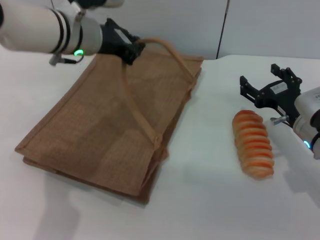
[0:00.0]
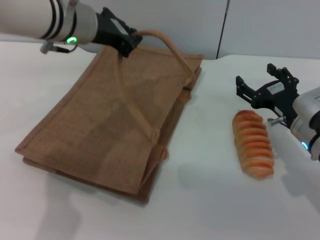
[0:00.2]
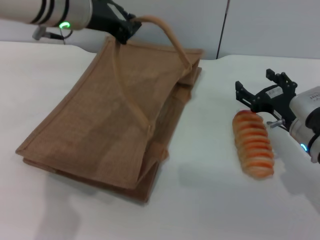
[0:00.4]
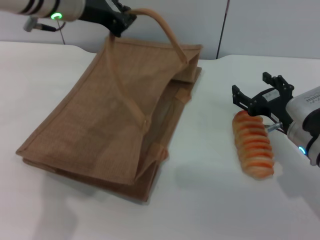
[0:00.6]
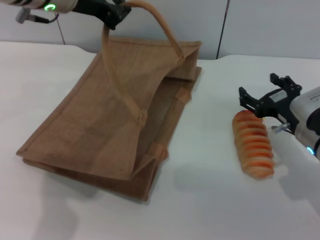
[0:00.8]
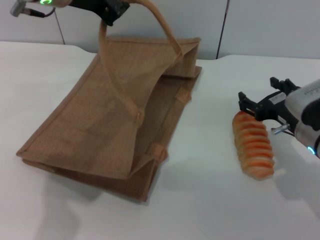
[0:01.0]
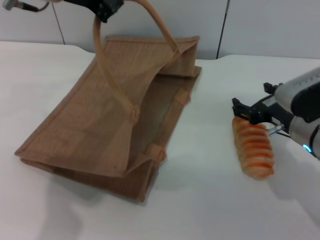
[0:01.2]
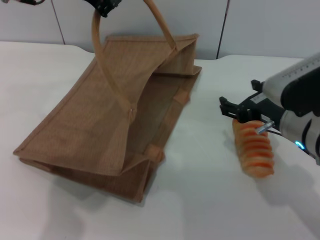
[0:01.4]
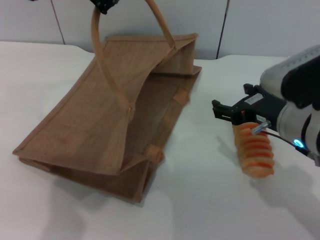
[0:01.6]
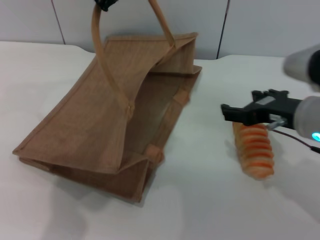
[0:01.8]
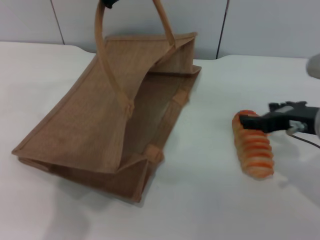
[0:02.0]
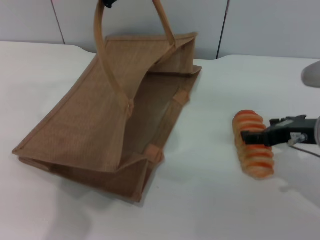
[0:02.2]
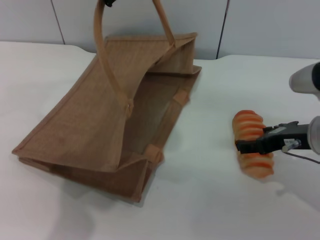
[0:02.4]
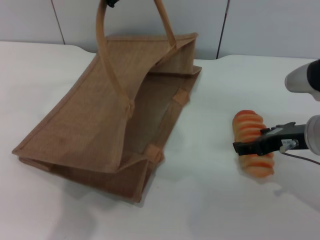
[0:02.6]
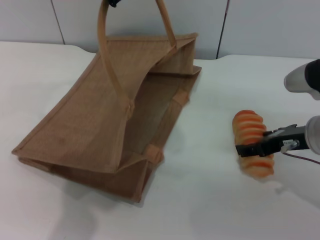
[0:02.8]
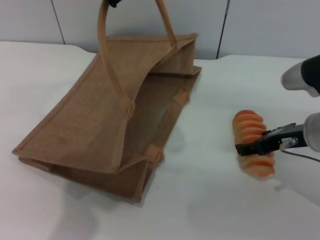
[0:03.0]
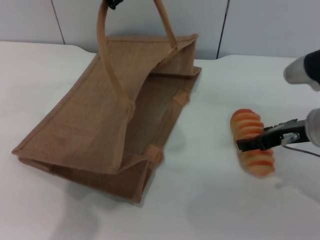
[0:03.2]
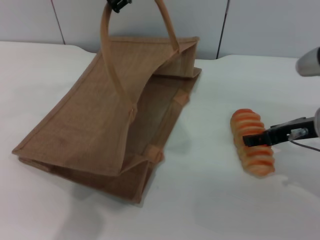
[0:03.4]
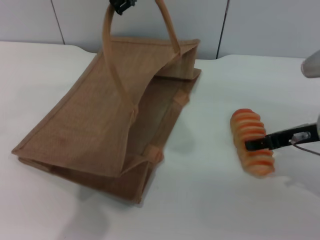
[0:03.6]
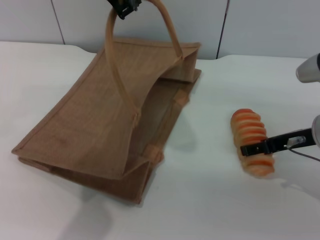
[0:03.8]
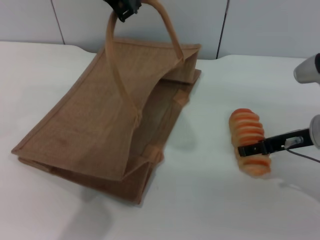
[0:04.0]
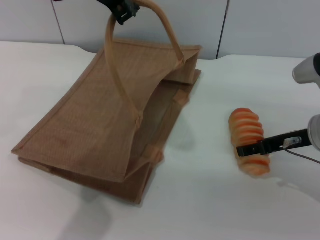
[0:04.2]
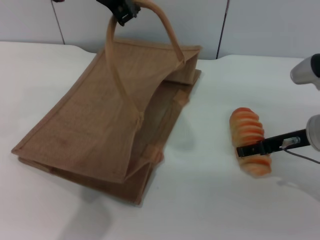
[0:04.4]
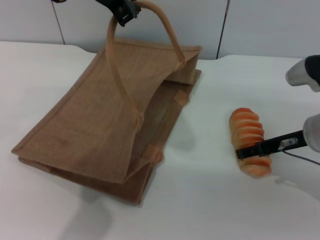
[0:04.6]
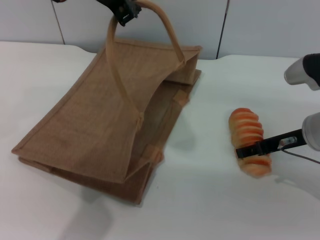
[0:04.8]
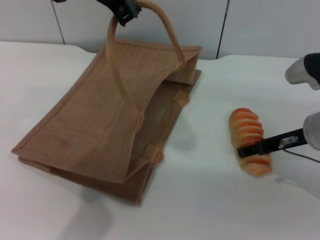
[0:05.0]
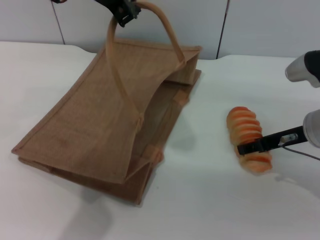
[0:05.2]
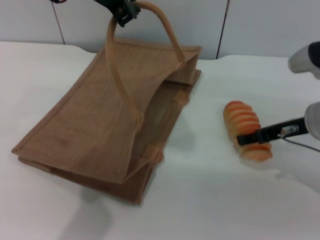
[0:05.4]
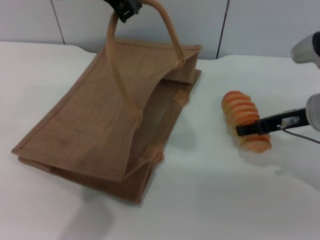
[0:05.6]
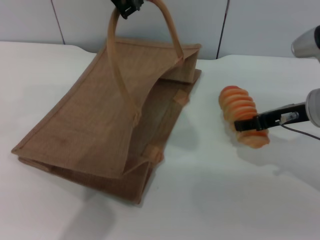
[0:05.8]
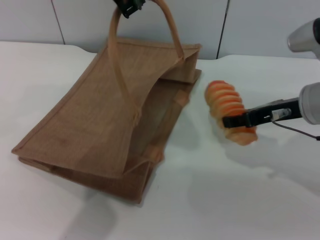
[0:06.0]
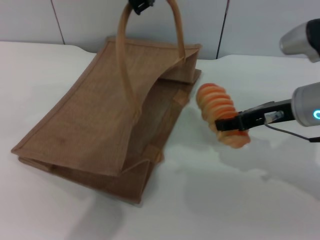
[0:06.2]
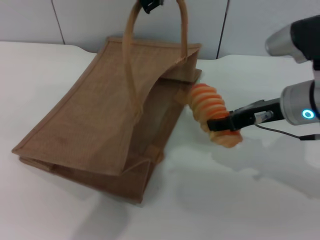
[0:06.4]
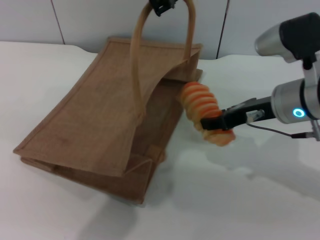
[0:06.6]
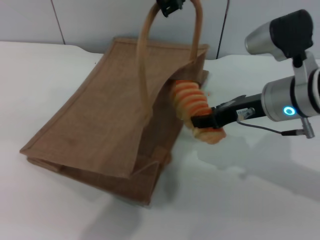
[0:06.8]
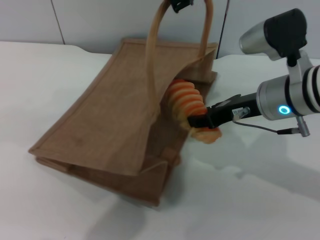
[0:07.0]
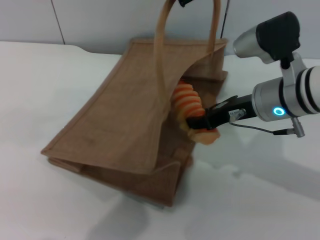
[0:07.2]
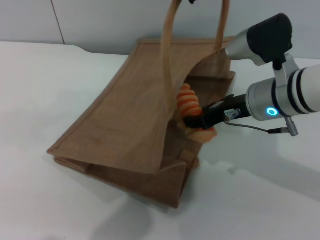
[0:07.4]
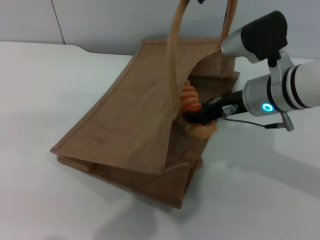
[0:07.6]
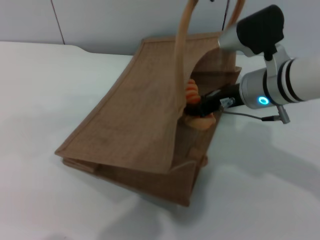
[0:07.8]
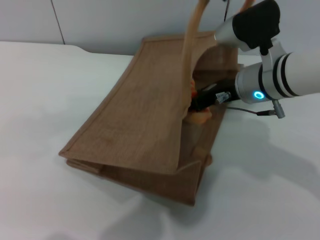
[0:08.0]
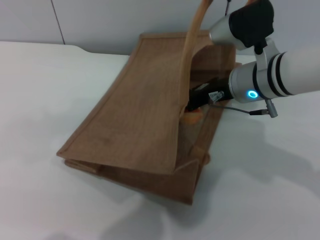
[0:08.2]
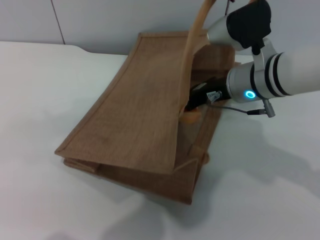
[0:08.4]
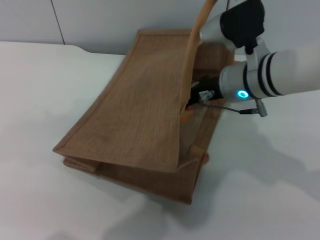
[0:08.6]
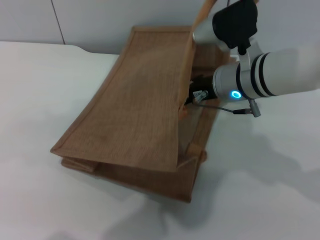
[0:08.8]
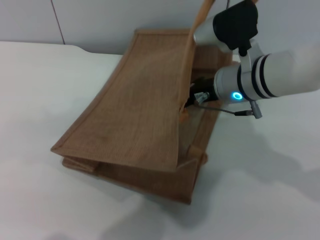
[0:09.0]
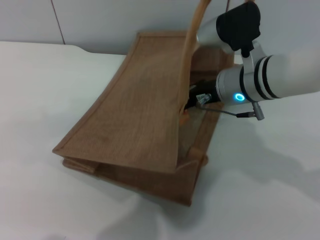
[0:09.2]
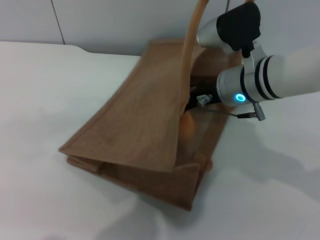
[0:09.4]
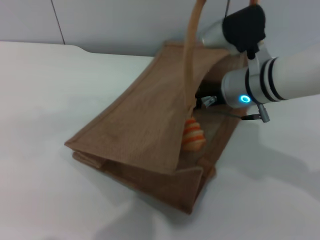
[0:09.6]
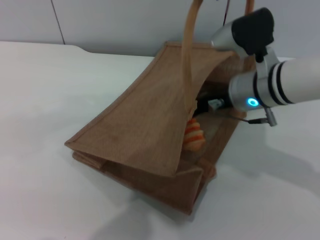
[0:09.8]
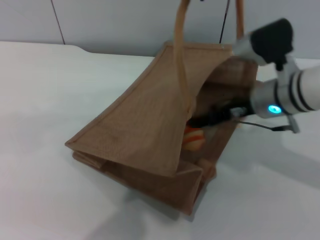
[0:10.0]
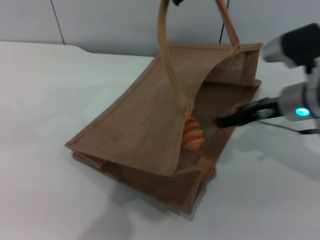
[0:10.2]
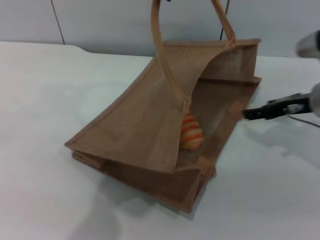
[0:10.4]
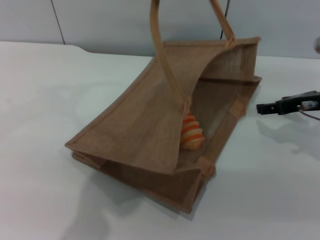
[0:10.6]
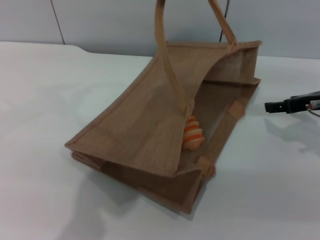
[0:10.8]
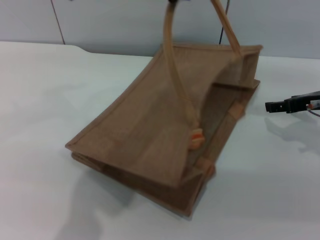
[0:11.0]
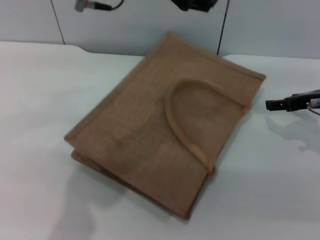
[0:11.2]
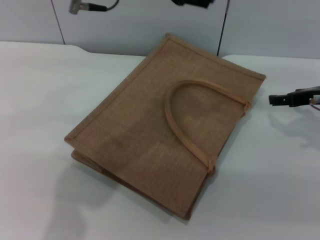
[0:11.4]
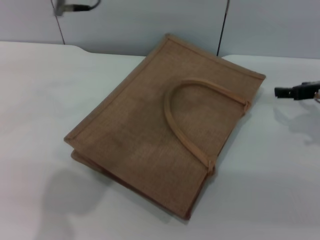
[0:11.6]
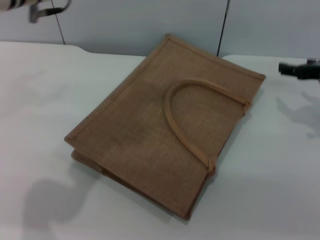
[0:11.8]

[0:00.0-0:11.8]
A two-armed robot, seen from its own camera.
Task of the whole recording: pick up the bread from the table and place it in the brown handbag.
Step, 0:00.8 to 0:05.6: Pick up the bread with the right gripper.
Step, 0:05.8 to 0:10.0: Place the bread into the woven bag with the right gripper.
Step, 0:10.2 to 0:11.2: Lower the woven bag with the left gripper to close it.
0:00.0 to 0:01.4: The left gripper heads upward, covering some 10 cm. The right gripper is displaced upward by some 5 cm.
0:03.0 to 0:04.4: The grippers move only a little.
0:04.4 to 0:06.0: The right gripper closes up.
0:06.0 to 0:07.4: The right gripper shifts some 5 cm to the left, and closes up, while the left gripper heads to the right, covering approximately 10 cm.
0:07.4 to 0:08.8: The right gripper shifts by about 5 cm.
0:08.8 to 0:10.4: The right gripper travels to the right by roughly 15 cm, and opens. The left gripper travels to the left by about 10 cm.
0:10.4 to 0:11.8: The right gripper shifts by some 5 cm. Meanwhile the left gripper heads to the left, covering some 10 cm, and opens its fingers.

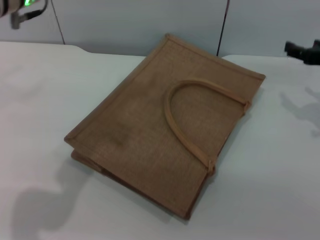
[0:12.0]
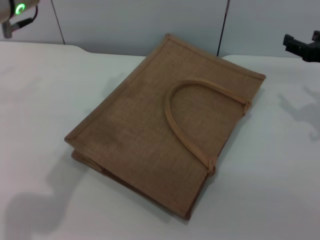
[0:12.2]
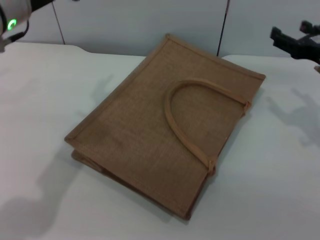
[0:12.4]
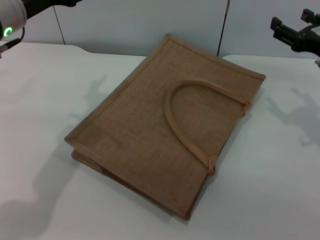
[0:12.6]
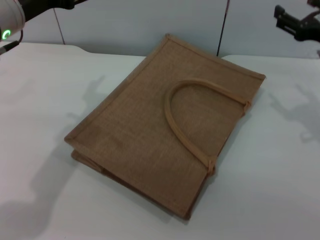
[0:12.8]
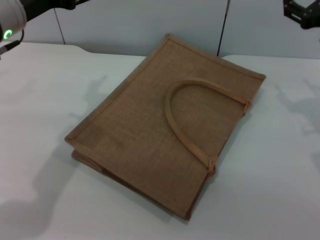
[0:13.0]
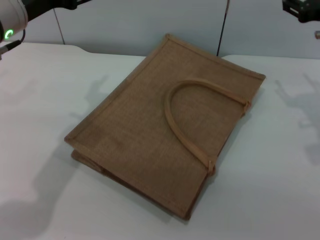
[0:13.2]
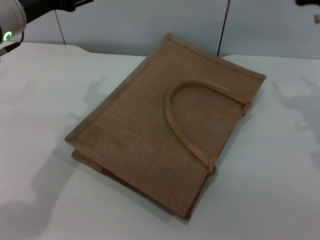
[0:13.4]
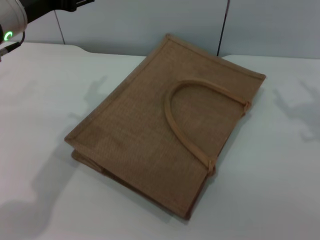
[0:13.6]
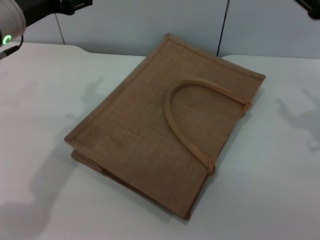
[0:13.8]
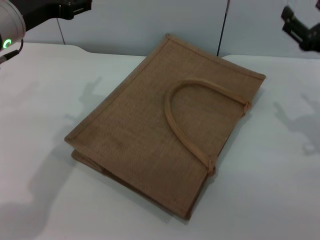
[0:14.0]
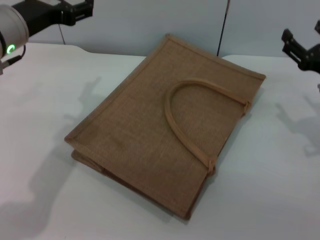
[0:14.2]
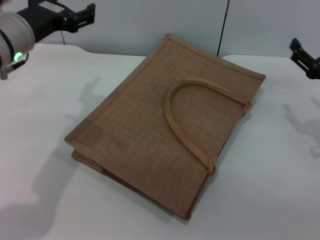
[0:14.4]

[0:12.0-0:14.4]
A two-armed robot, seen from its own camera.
Task of the whole recording: pick up the bread from the table and place it in the brown handbag.
0:12.0 to 0:13.2: The right gripper ends up some 5 cm from where it was, while the left gripper changes place by about 5 cm.
0:13.2 to 0:14.4: The right gripper shifts approximately 10 cm downward and backward.
